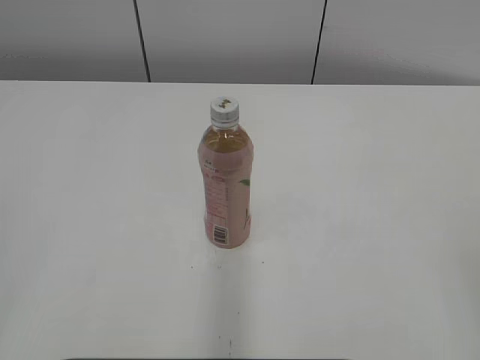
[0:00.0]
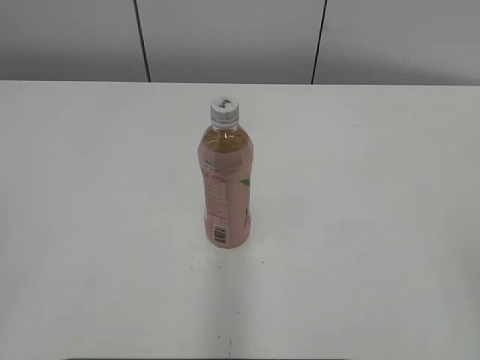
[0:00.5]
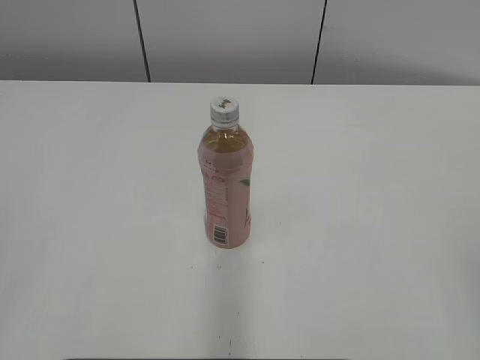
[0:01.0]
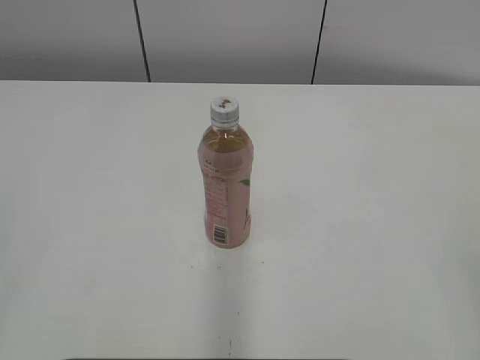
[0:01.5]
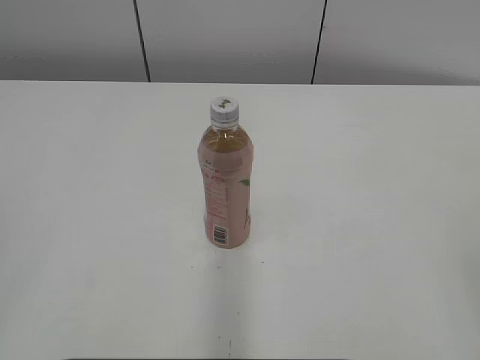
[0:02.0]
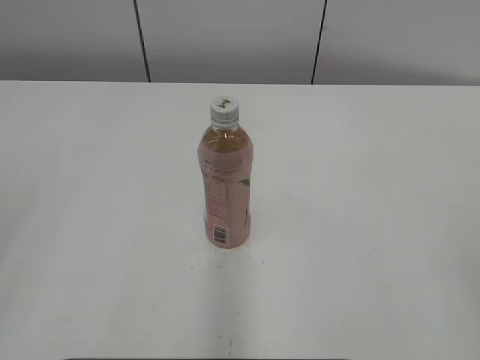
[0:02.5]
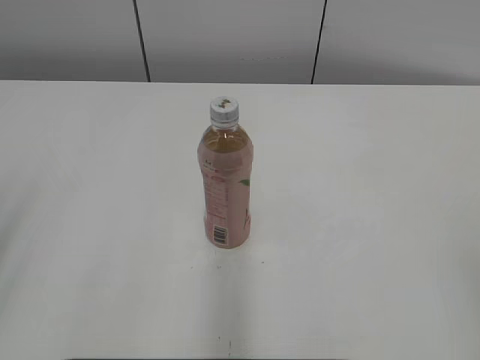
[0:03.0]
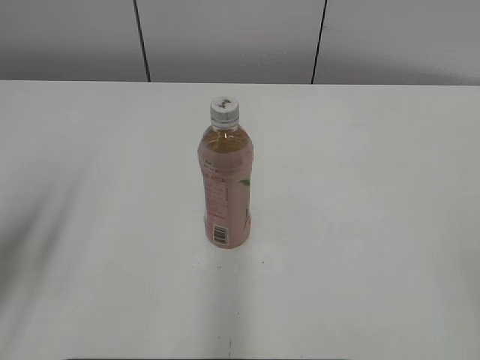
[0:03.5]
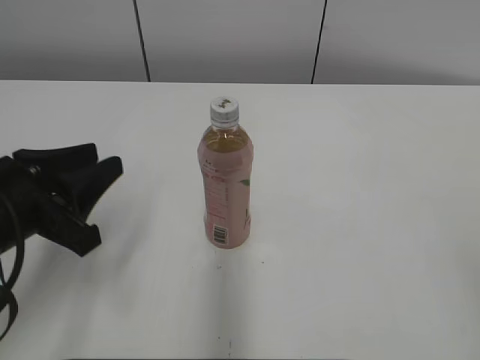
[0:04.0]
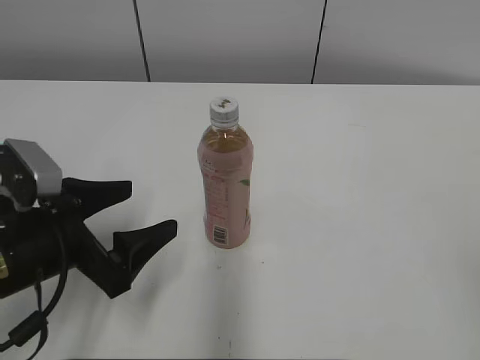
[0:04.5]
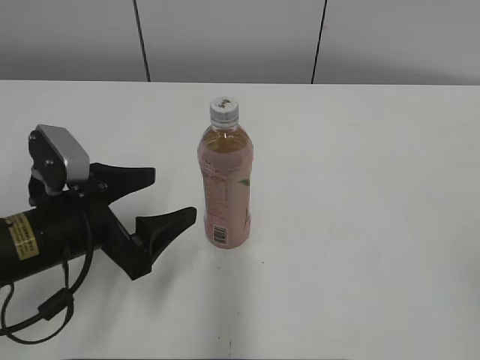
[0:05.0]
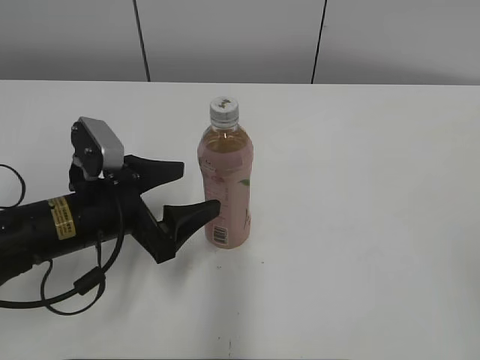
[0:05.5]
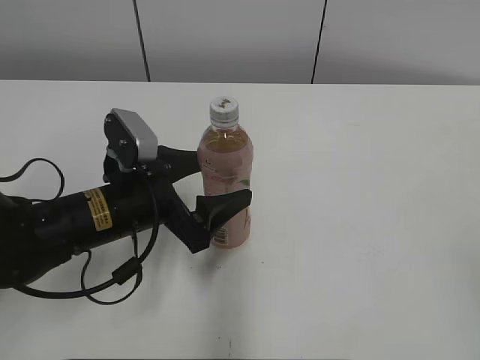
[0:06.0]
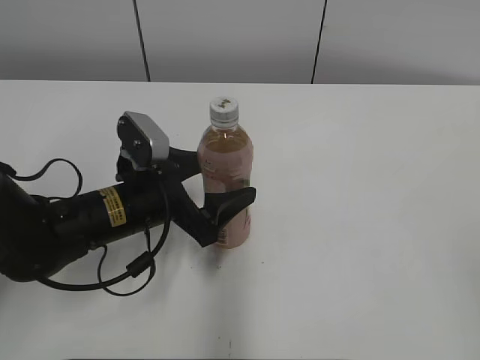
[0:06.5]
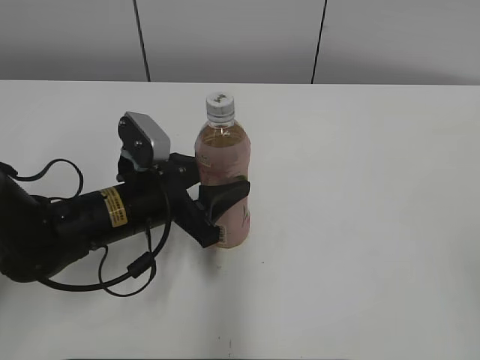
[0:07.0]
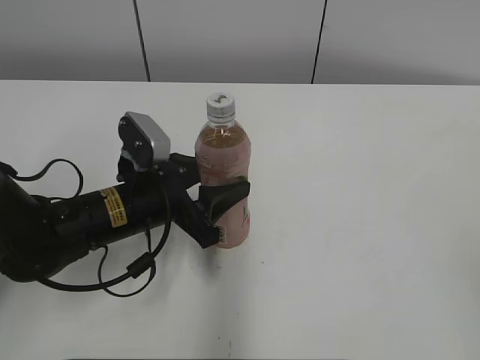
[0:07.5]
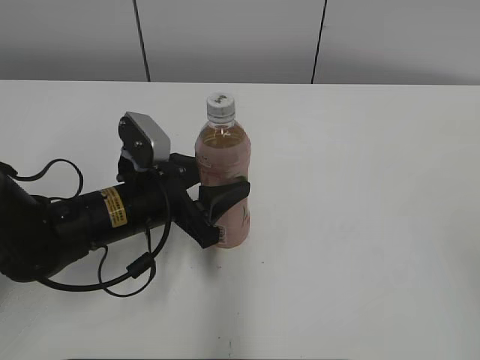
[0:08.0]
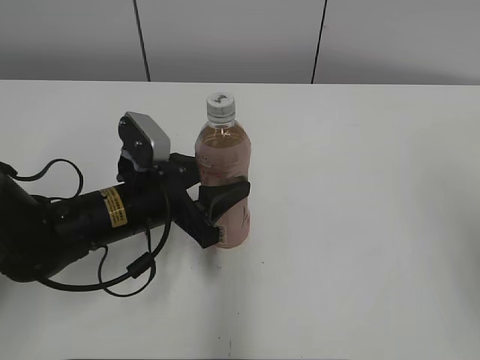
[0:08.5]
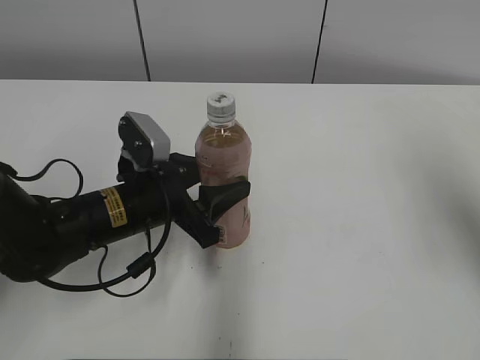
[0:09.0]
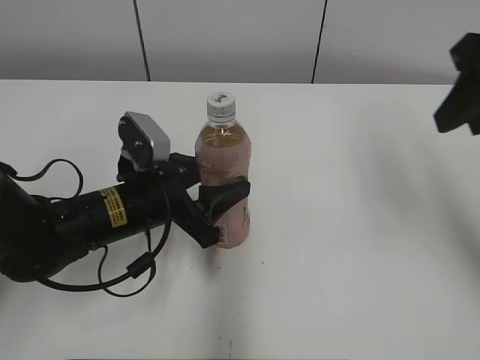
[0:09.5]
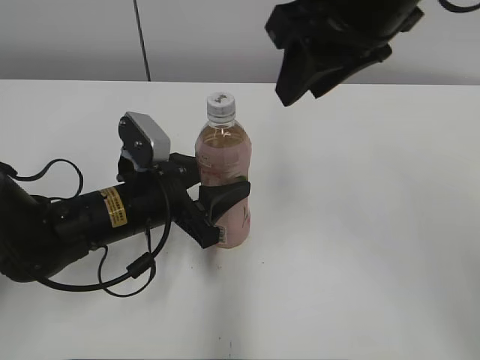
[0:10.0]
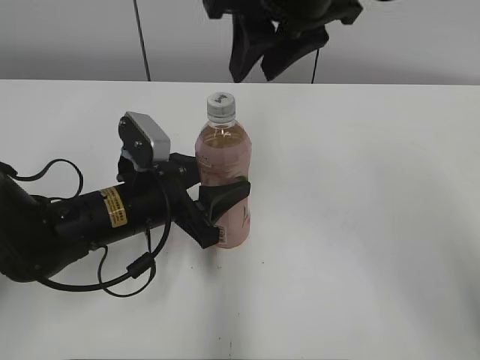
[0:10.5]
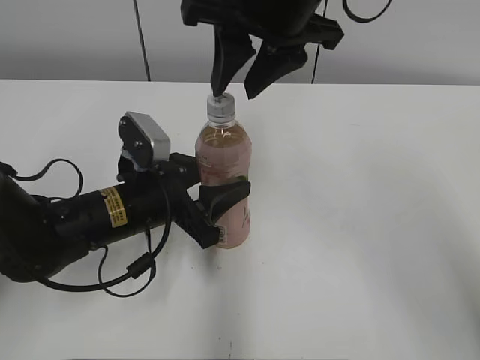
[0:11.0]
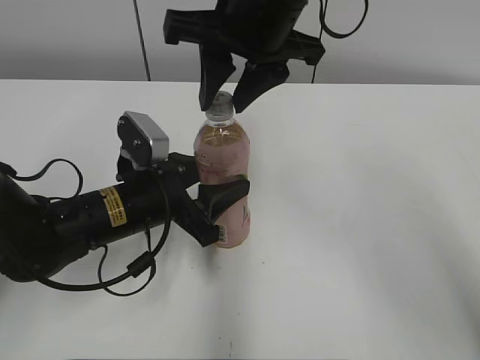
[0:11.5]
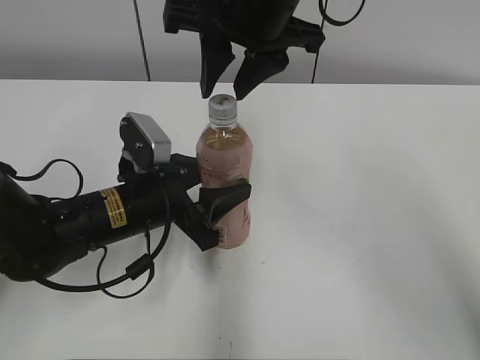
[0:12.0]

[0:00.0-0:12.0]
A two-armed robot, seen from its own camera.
Step, 0:00.0 to 0:06.5: Grab the Peach Oolong Tea with the left hand.
0:02.0 to 0:04.0: The left gripper heads forward, downward and to the right, covering roughly 25 cm.
0:04.0 to 0:06.0: The left gripper moves to the right, forward and downward, roughly 15 cm, and opens its fingers.
0:06.0 to 0:08.0: The left gripper closes up.
0:08.0 to 0:10.0: The right gripper goes roughly 35 cm forward and to the left.
0:10.0 to 0:12.0: The right gripper is displaced to the left by about 10 cm.

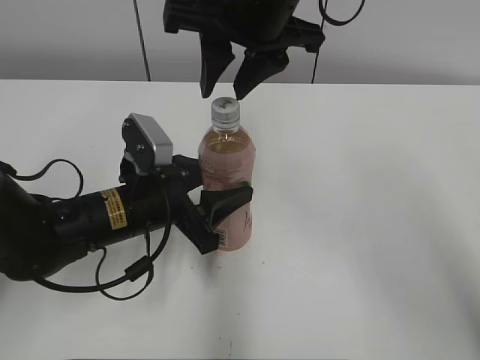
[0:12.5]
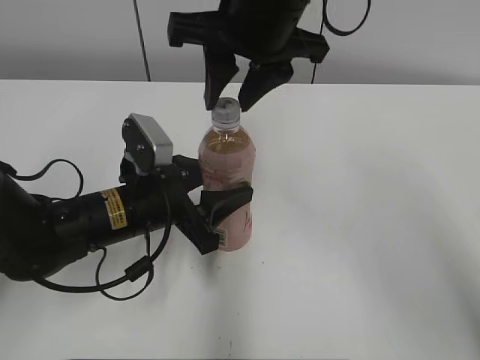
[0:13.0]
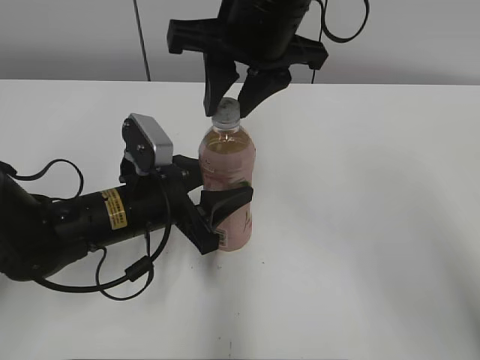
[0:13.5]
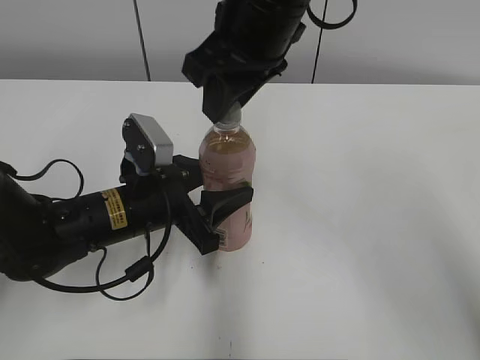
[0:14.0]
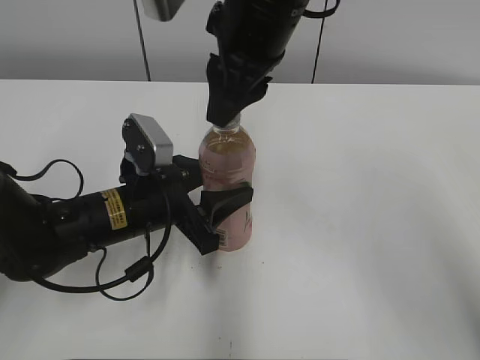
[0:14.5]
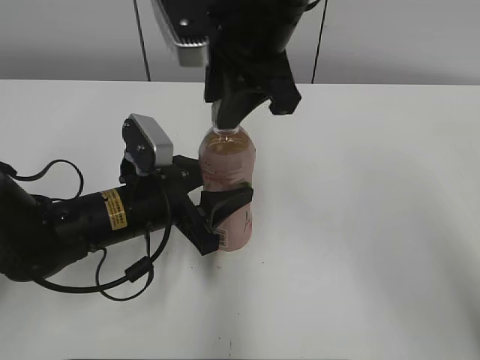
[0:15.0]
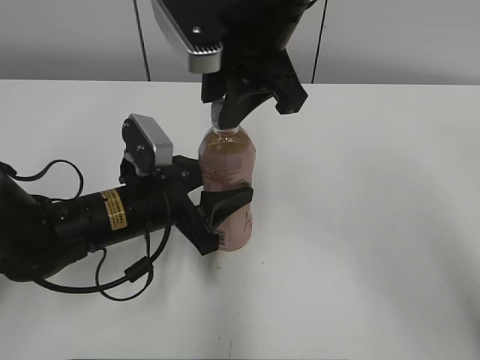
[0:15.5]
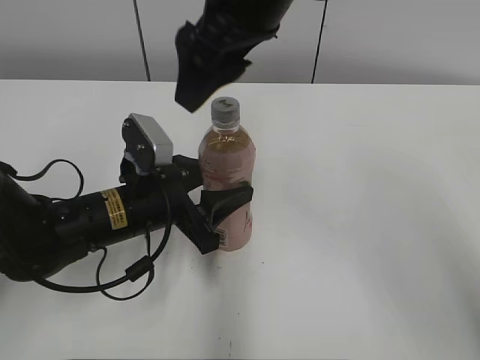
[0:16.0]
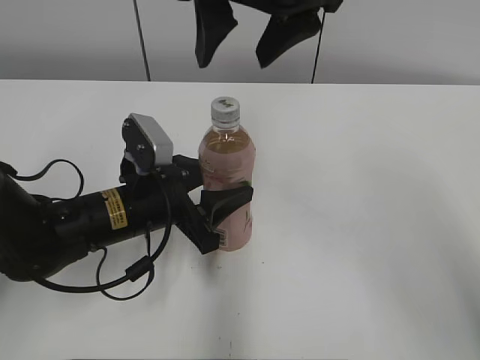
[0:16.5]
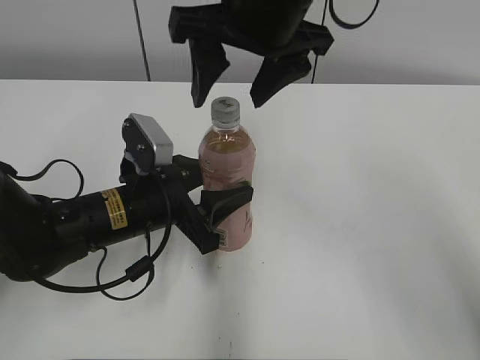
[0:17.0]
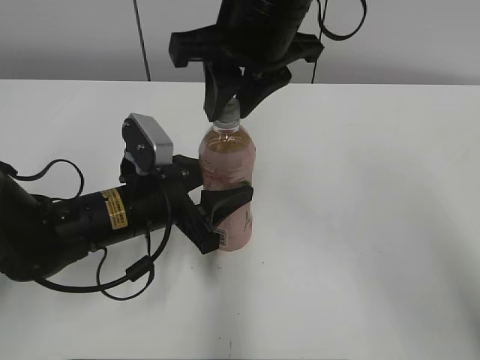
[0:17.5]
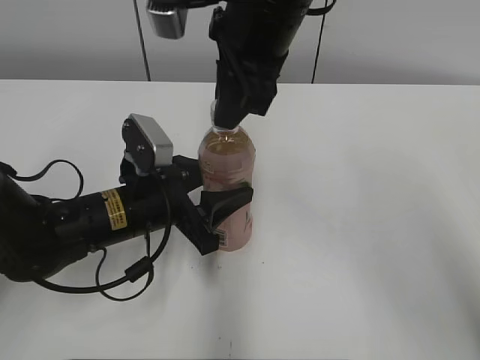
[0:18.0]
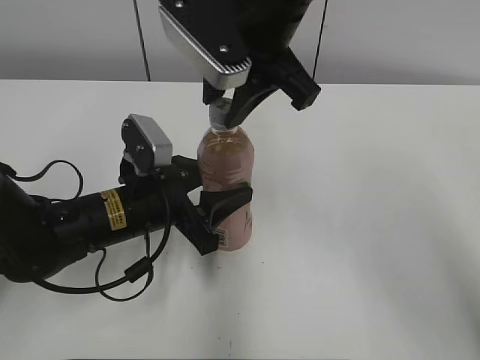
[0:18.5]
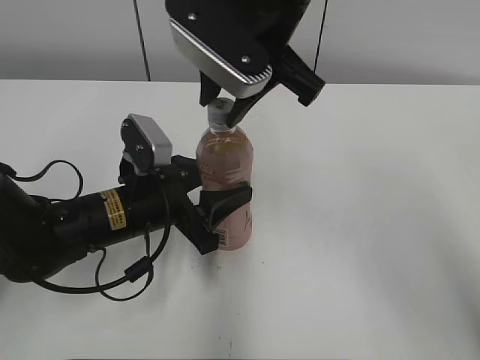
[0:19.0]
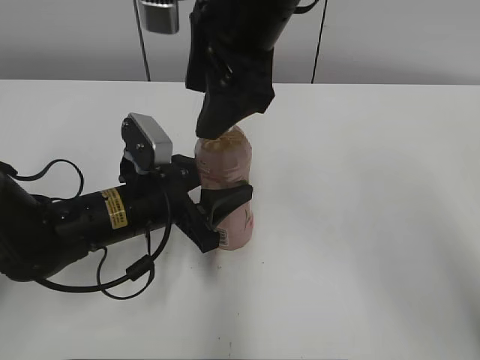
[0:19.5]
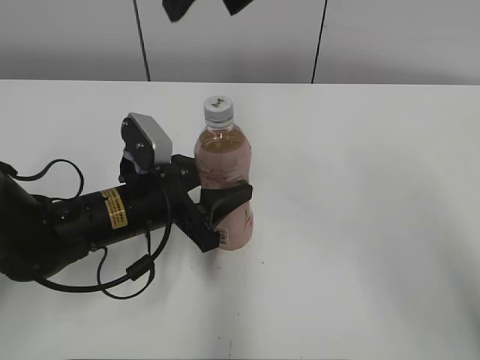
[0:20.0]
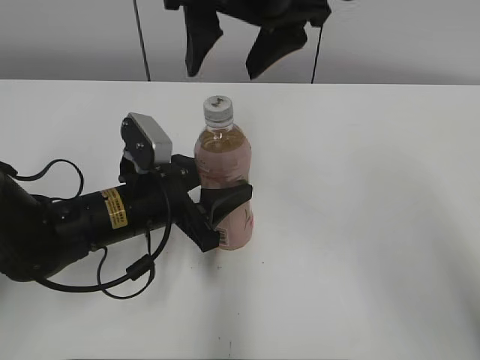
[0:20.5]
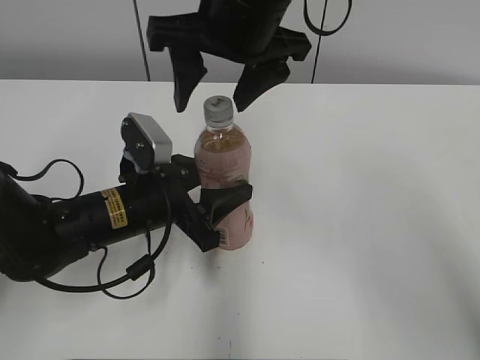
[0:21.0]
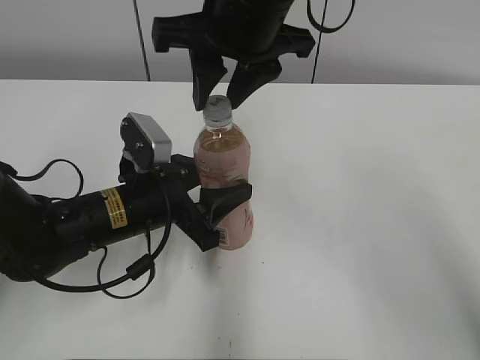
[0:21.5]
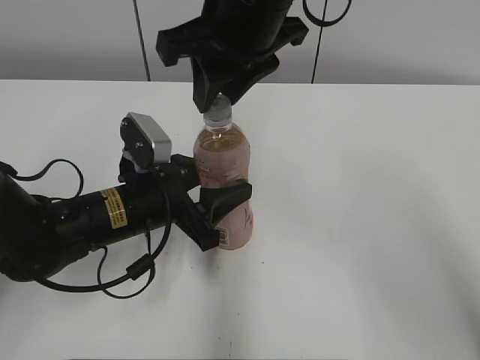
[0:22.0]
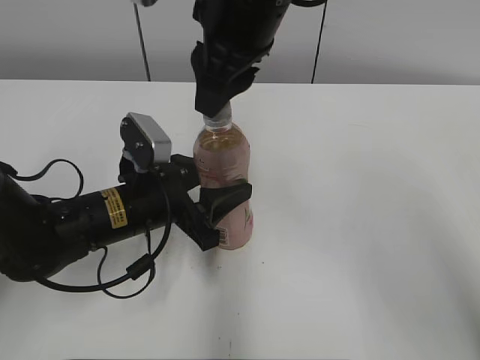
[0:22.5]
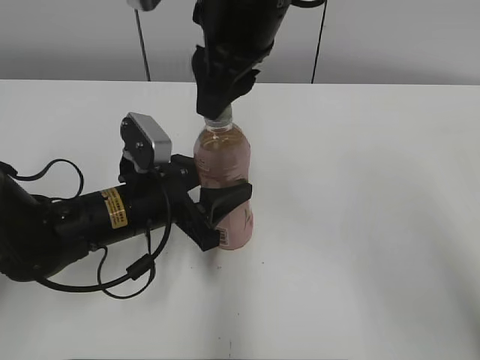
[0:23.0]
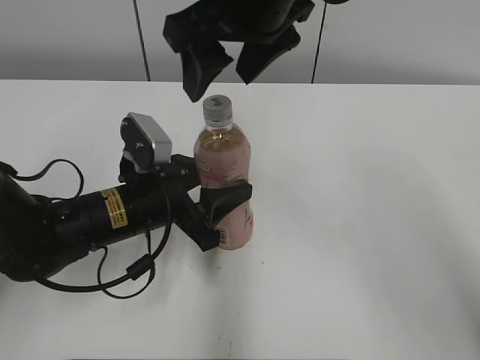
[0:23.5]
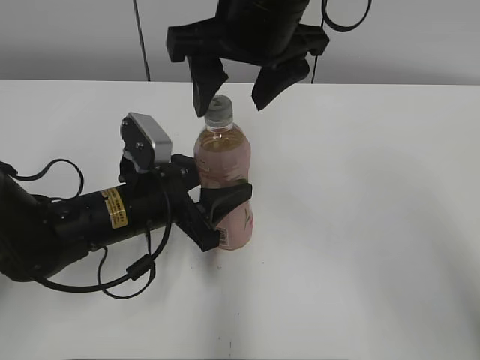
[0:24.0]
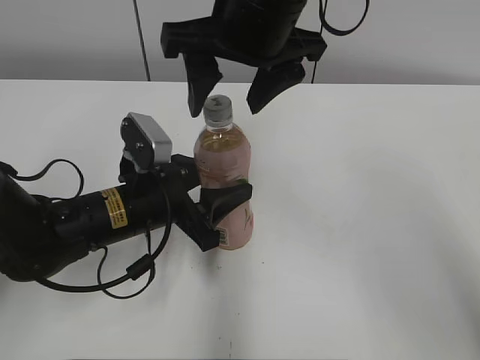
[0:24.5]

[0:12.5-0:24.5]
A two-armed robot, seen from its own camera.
0:14.5 to 0:16.5: The right gripper opens up.
0:16.5 to 0:18.5: The right gripper closes its fingers.
0:18.5 to 0:20.5: The right gripper opens up.
0:20.5 to 0:22.5: The right gripper closes.
0:22.5 to 0:24.5: The right gripper opens its fingers.

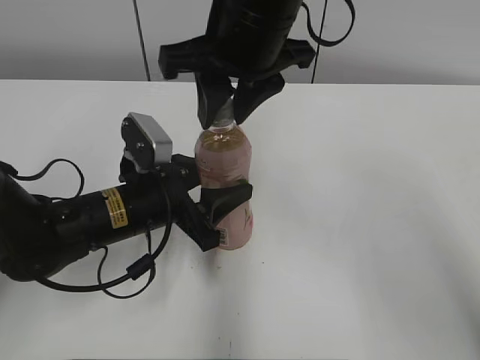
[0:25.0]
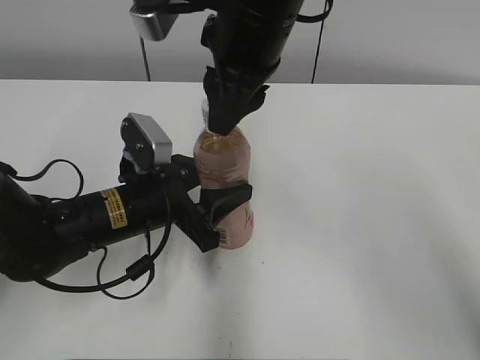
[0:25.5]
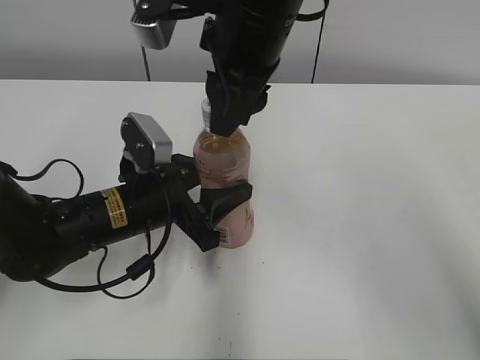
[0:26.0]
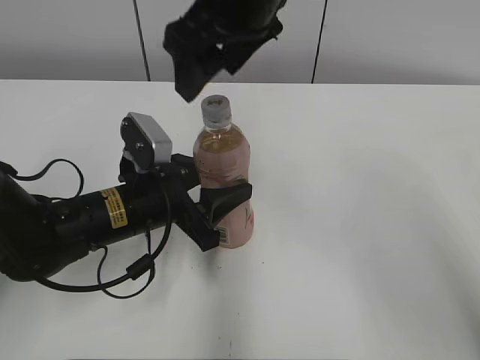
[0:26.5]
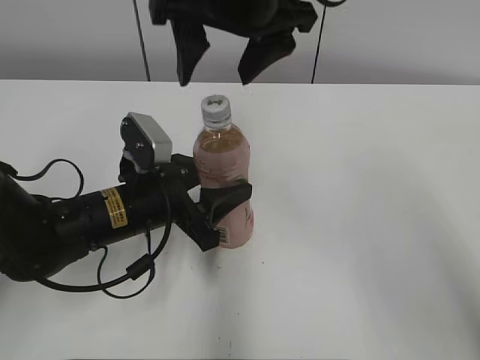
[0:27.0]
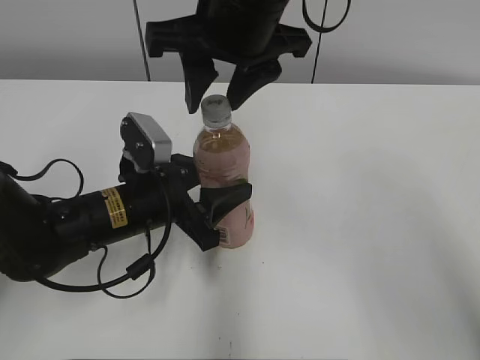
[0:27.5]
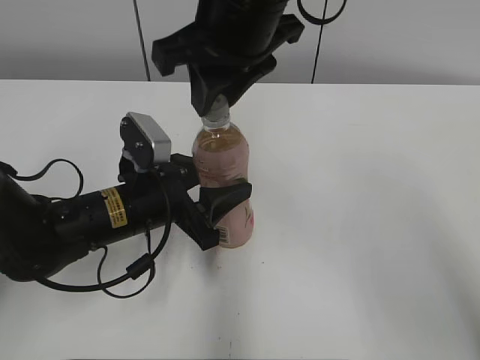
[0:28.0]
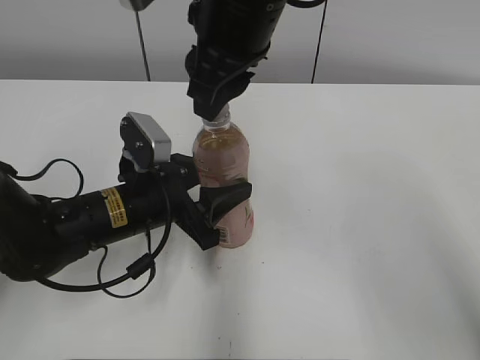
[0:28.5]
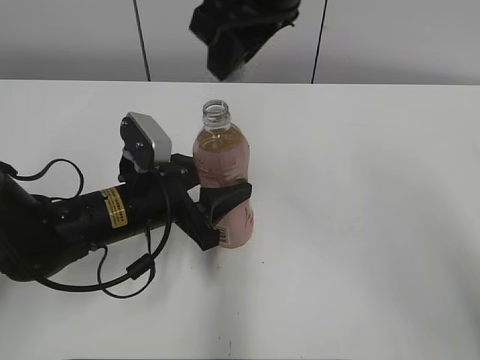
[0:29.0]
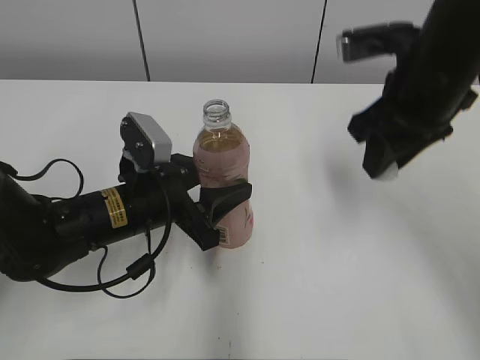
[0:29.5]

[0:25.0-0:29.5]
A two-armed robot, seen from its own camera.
Step, 0:25.0 to 0:28.5: Twist the bottle cap with the right hand.
0:25.0 to 0:27.0: The right gripper opens up.
0:27.0 to 0:29.5: The right gripper travels to the right and downward by approximately 15 cm, and closes.
